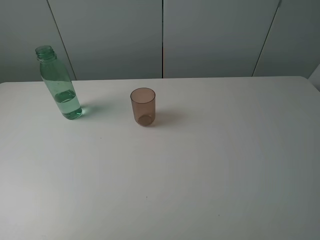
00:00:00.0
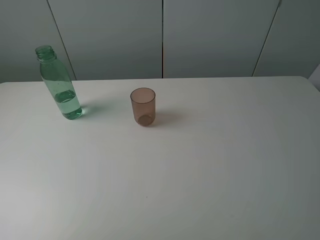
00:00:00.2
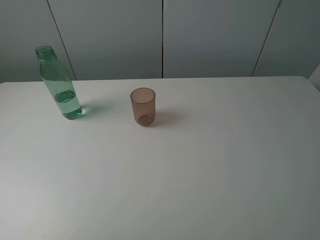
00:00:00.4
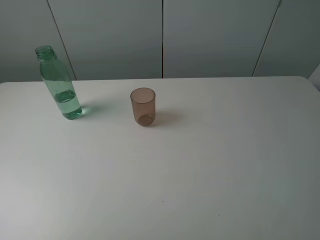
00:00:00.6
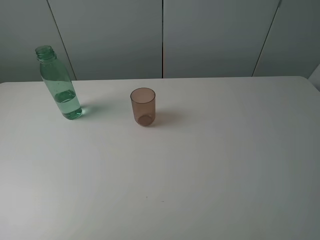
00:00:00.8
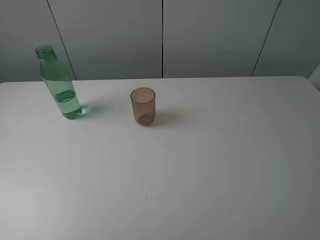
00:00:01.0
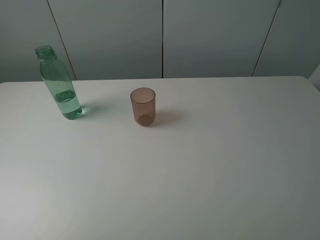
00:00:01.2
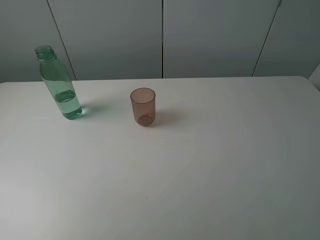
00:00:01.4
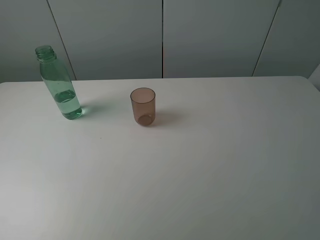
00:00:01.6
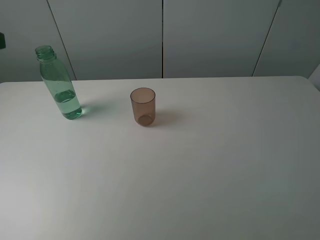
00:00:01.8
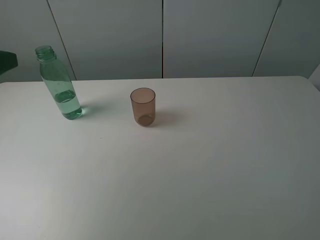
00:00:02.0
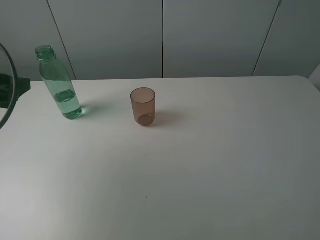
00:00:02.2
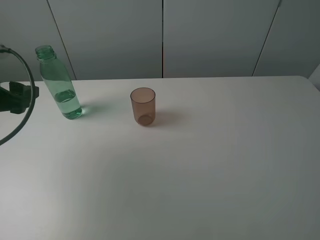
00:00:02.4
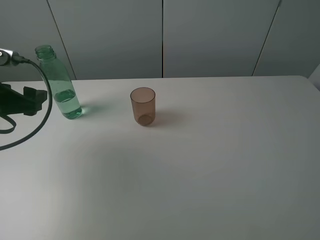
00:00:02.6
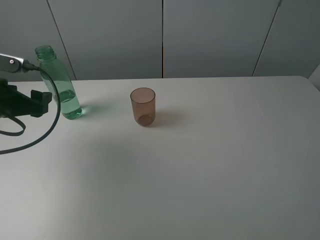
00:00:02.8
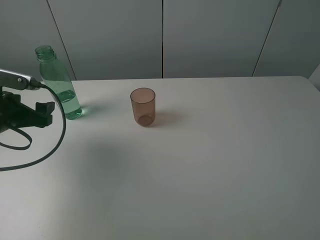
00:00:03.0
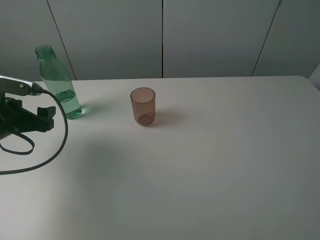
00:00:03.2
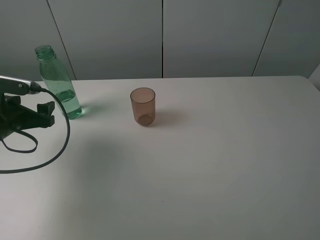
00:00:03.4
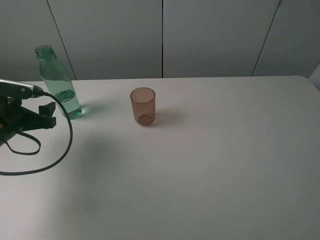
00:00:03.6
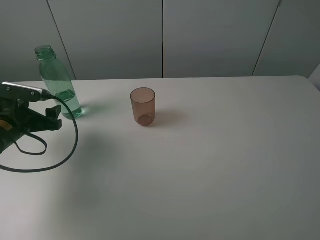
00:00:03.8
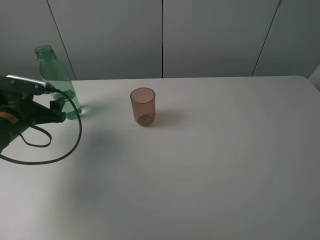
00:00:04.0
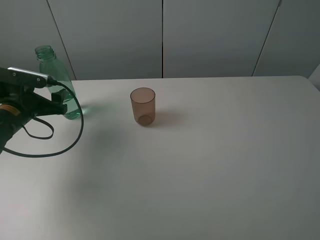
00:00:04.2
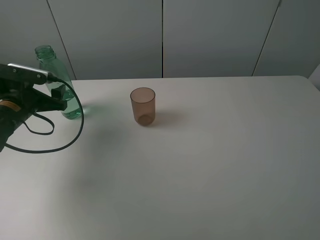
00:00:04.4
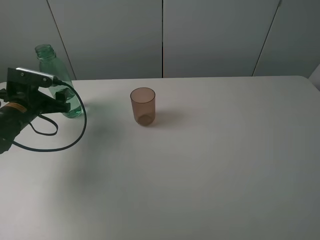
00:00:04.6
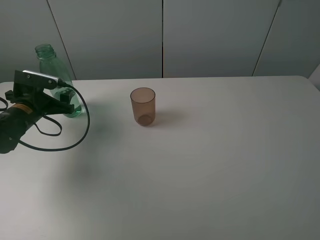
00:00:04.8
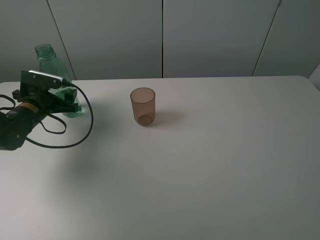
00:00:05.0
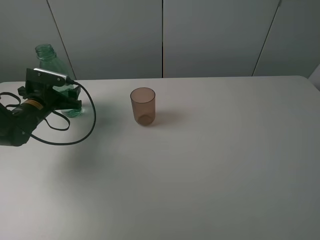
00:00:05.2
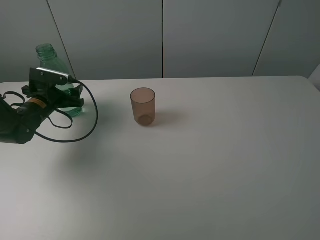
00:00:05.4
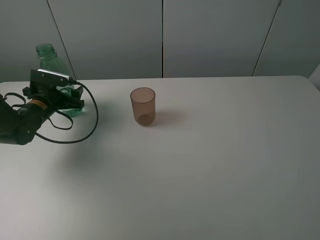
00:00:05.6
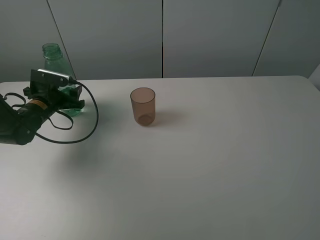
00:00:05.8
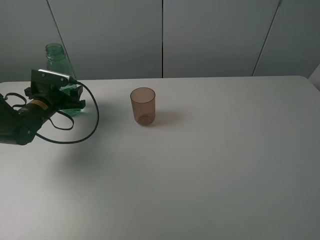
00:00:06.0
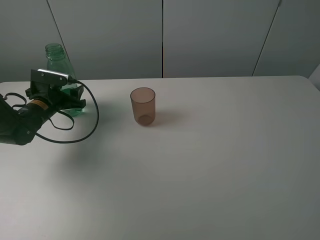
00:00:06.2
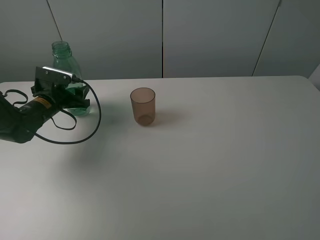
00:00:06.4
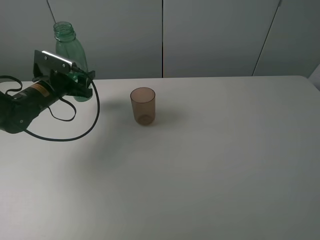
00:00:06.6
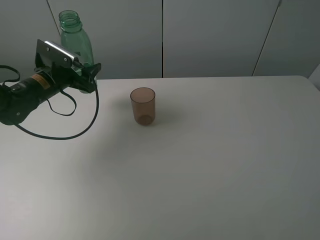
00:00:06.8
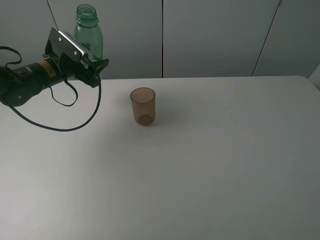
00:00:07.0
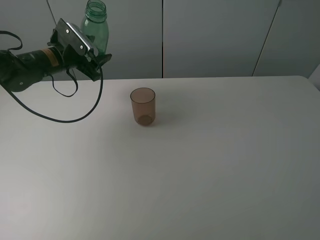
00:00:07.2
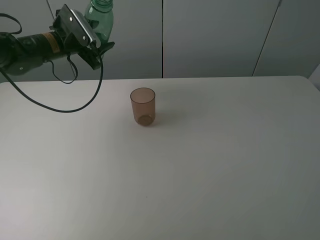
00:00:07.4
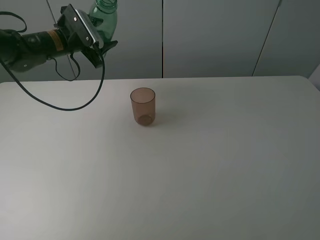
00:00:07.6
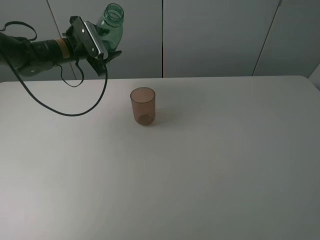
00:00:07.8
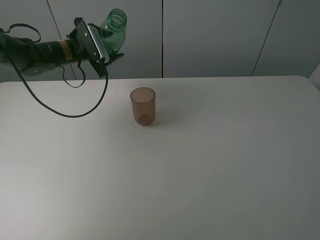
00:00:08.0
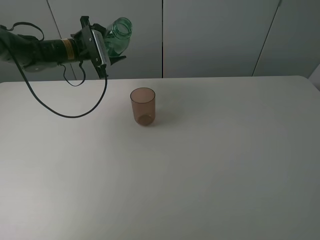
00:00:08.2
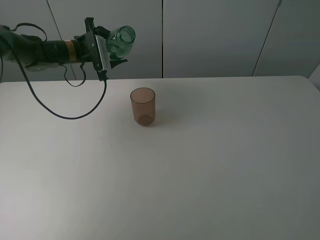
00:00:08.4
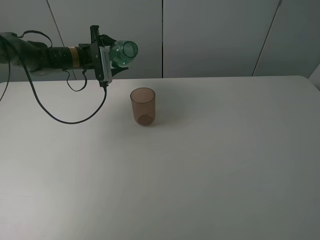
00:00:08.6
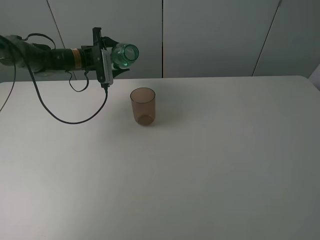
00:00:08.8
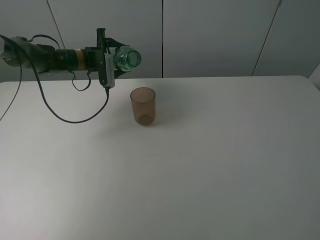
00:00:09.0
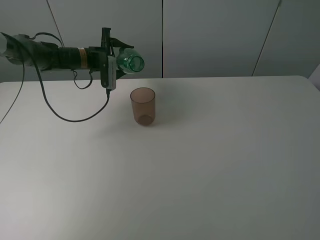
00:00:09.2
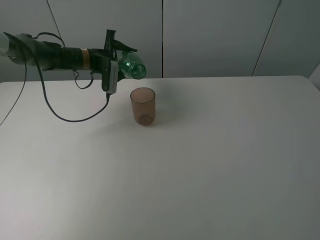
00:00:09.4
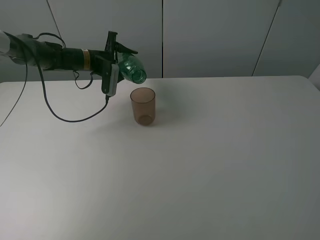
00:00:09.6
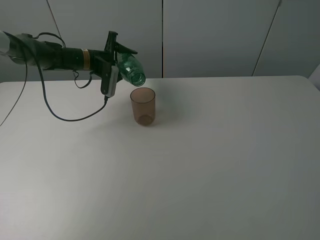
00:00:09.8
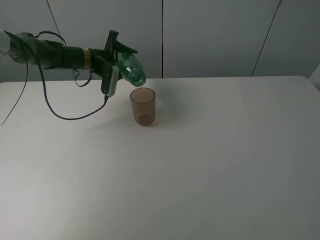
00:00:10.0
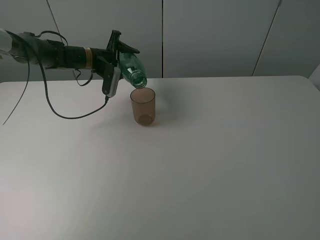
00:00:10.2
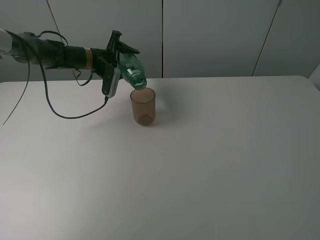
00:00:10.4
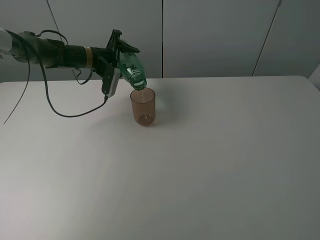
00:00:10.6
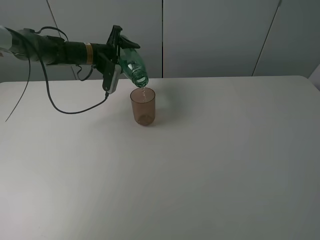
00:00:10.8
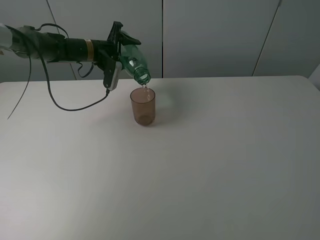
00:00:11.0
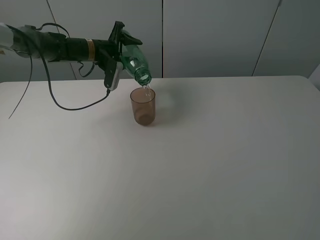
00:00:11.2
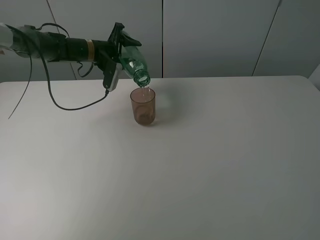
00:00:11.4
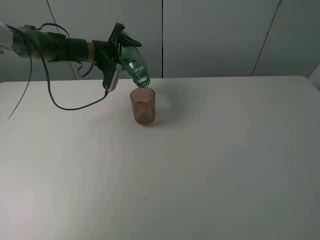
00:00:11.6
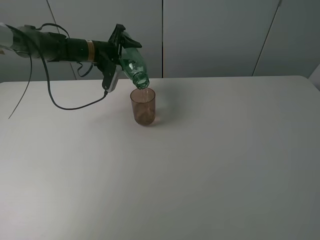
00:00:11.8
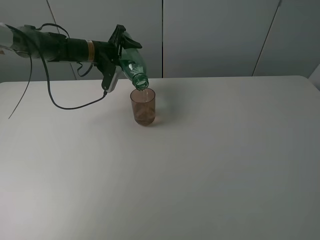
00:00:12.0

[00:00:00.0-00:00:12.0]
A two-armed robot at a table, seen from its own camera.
Task of the whole recording: pick up the bottle filled with water and pour it into the pink cup.
Step, 00:00:00.0 to 00:00:05.8: Grasp the green bottle with the left gripper.
00:00:01.6 to 00:00:03.0: The left gripper moves downward and forward, about 25 cm.
00:00:03.0 to 00:00:04.4: The left gripper moves forward, some 5 cm.
00:00:04.4 to 00:00:06.0: The left gripper travels forward by approximately 5 cm, and closes.
00:00:06.0 to 00:00:07.6: The left gripper travels upward, forward and to the right by about 15 cm.
00:00:07.6 to 00:00:09.0: The left gripper moves downward, approximately 5 cm.
00:00:10.4 to 00:00:12.0: The grippers stay close to where they were, moving slightly.

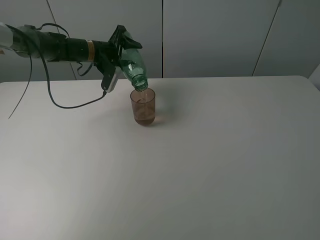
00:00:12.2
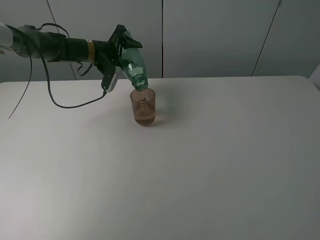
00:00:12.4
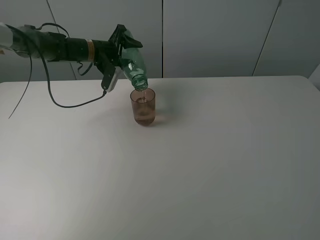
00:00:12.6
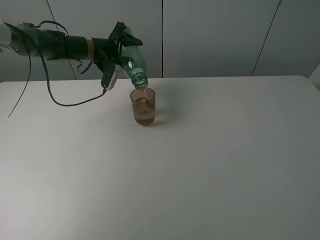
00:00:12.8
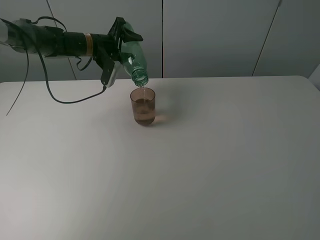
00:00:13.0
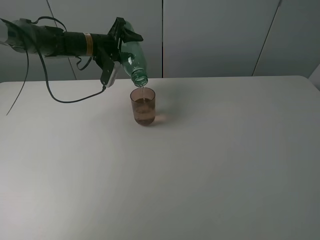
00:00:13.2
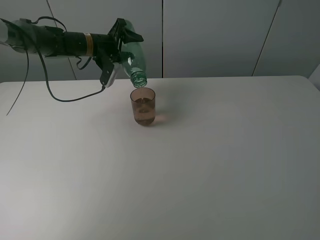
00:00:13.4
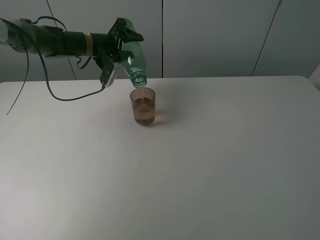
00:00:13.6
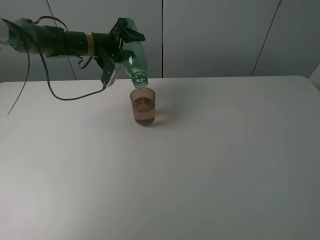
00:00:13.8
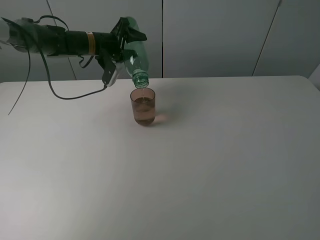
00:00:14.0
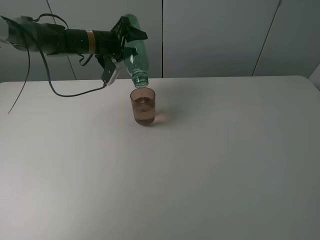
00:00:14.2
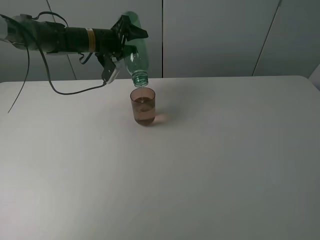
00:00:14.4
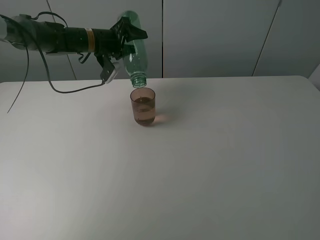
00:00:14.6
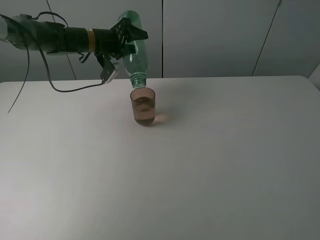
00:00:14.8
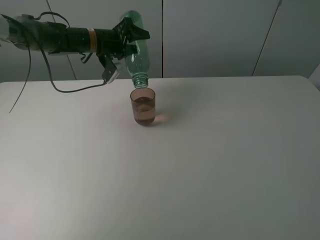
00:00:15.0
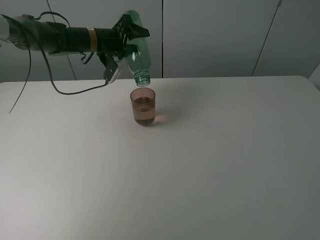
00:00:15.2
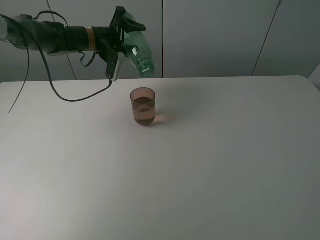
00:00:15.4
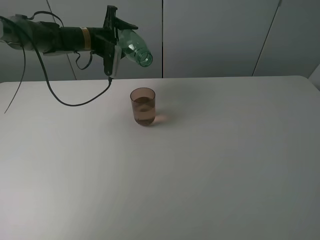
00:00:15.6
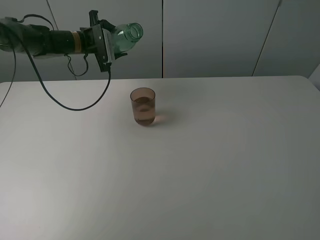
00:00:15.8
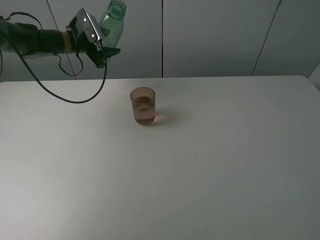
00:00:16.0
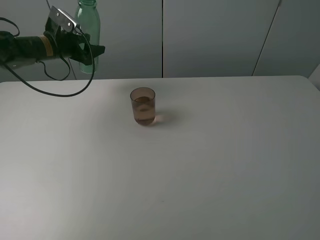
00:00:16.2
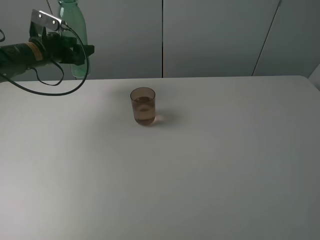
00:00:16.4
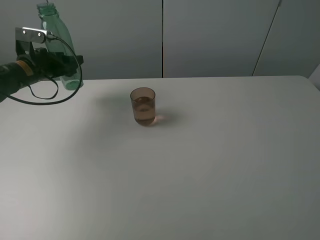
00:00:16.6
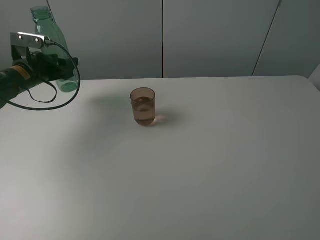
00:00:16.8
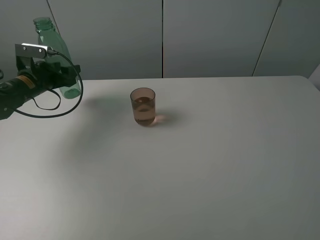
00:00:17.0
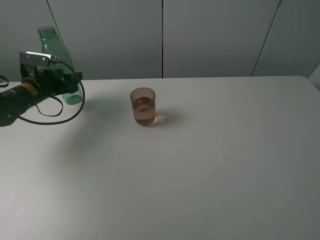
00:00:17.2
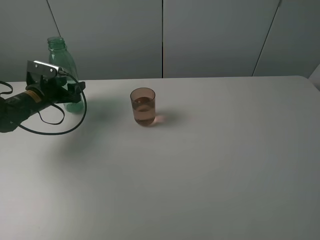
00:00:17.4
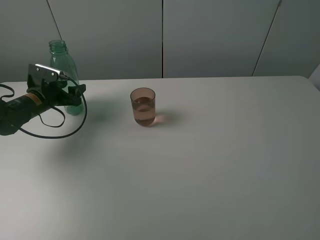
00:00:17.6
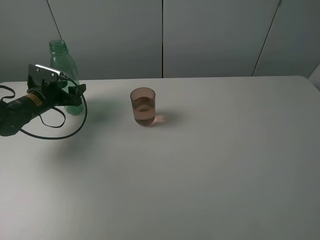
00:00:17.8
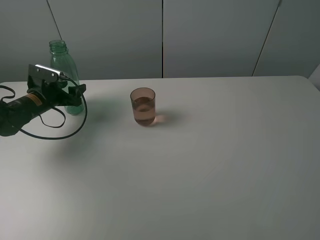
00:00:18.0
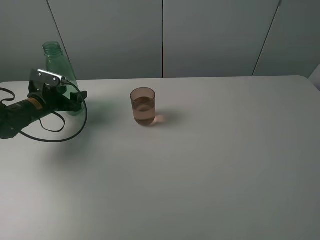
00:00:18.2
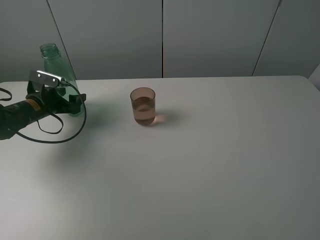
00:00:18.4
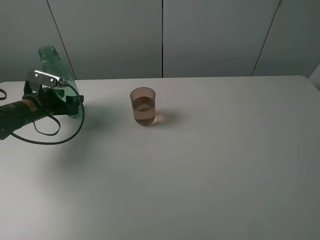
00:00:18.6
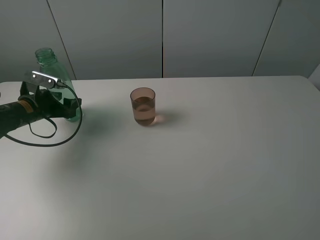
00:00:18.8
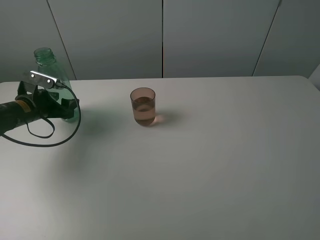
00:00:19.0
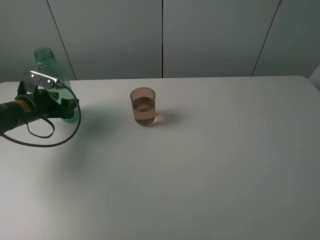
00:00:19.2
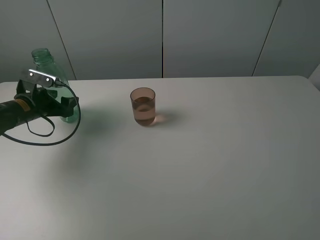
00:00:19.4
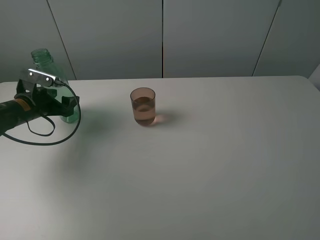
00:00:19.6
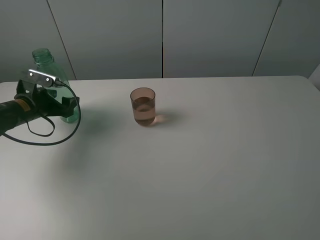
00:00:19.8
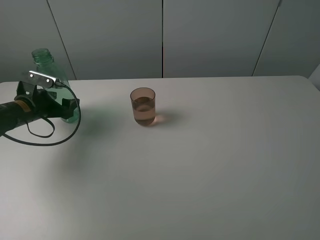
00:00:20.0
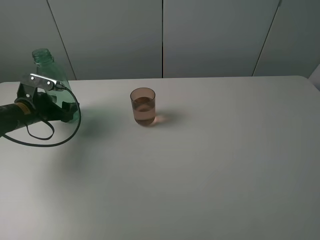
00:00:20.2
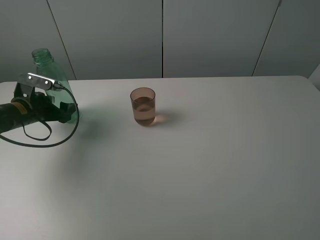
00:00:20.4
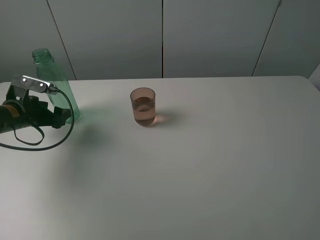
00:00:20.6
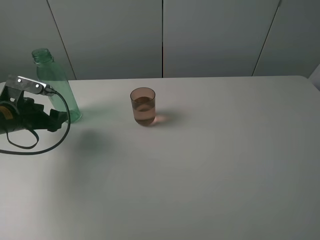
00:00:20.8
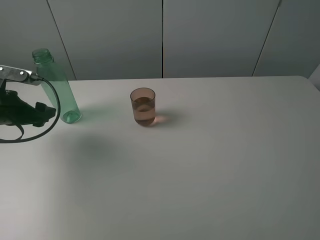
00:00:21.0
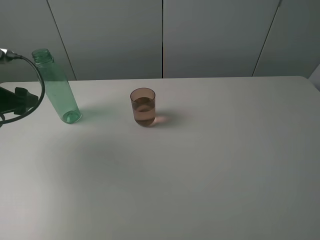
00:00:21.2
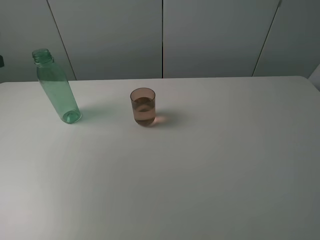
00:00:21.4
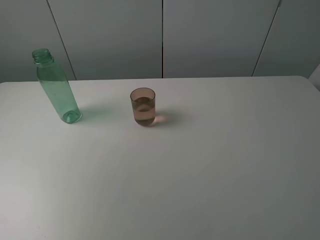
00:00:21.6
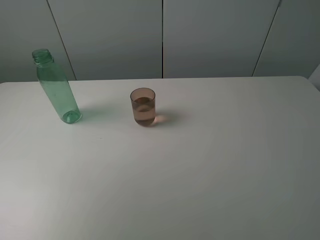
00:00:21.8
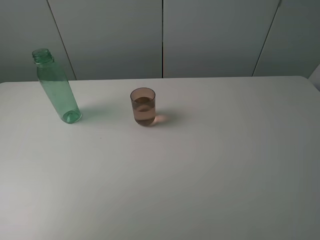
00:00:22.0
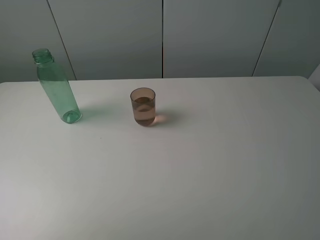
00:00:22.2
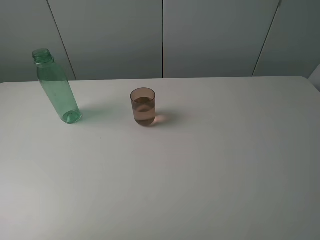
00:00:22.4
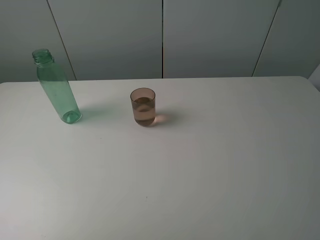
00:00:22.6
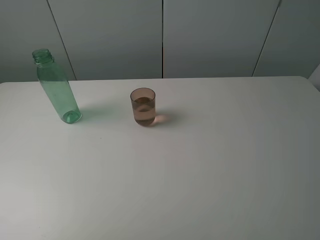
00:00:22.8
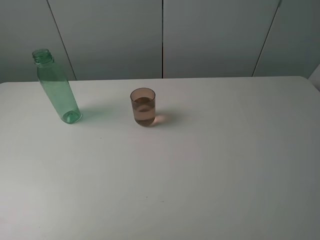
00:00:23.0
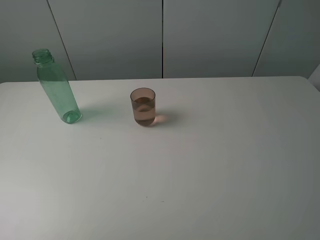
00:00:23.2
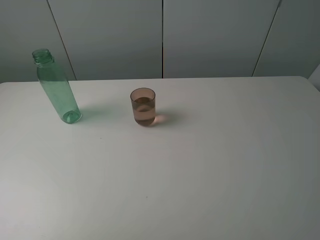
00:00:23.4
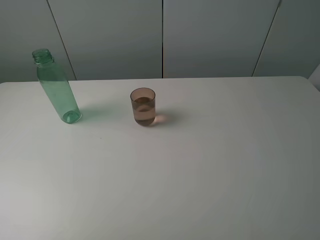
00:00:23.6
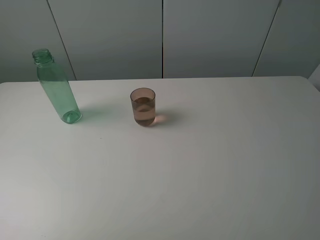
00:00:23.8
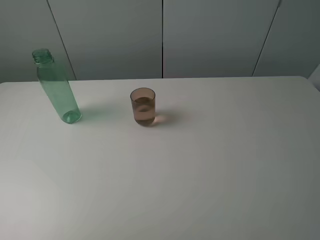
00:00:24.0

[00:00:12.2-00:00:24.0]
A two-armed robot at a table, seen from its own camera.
Task of the whole recording: pick up the bottle filled with water and pour it into the pink cup.
Step, 00:00:12.2 to 00:00:15.6: Pour water from green bottle to pink cup with the left gripper.
Step, 00:00:15.8 to 00:00:20.8: Place the green bottle with the left gripper.
00:00:12.2 to 00:00:13.6: The grippers make only small movements.
00:00:13.6 to 00:00:15.2: The grippers stay close to where they were, moving slightly.
00:00:15.2 to 00:00:16.6: The left gripper travels to the left and backward by about 20 cm.
00:00:16.6 to 00:00:18.2: The left gripper is displaced downward by roughly 10 cm, and opens up.
00:00:18.2 to 00:00:19.6: The left gripper closes, then reopens.
00:00:19.6 to 00:00:21.0: The left gripper travels backward and upward by about 10 cm.
00:00:21.0 to 00:00:22.6: The left gripper goes approximately 30 cm backward and upward, and closes up.
00:00:22.6 to 00:00:24.0: Both grippers stay about where they are.
